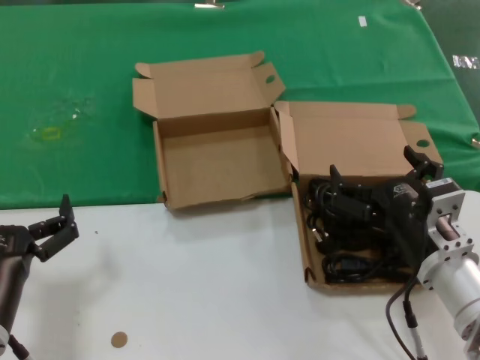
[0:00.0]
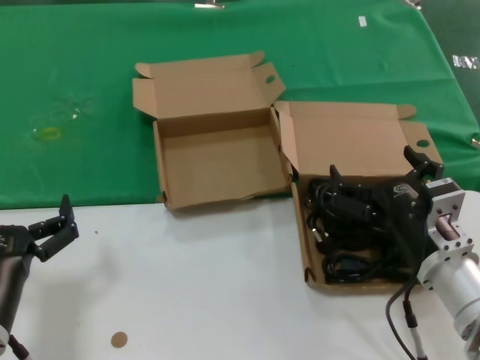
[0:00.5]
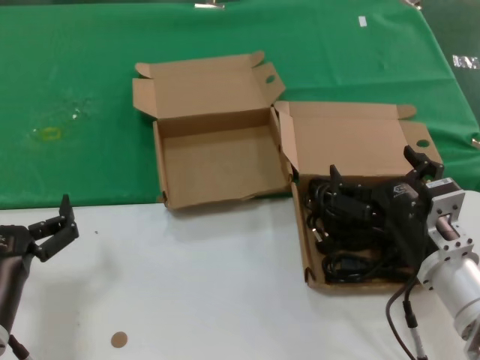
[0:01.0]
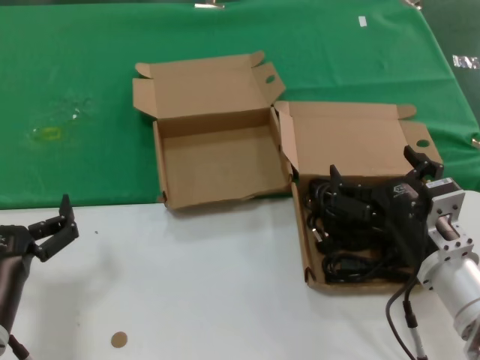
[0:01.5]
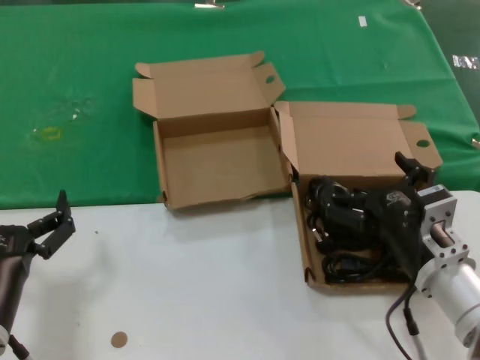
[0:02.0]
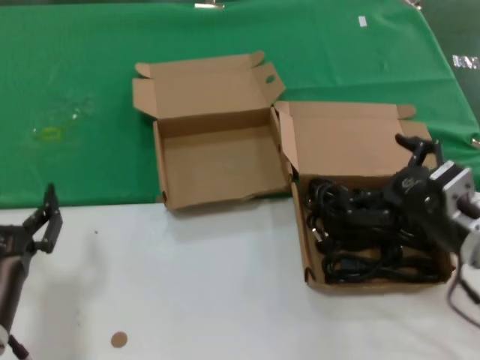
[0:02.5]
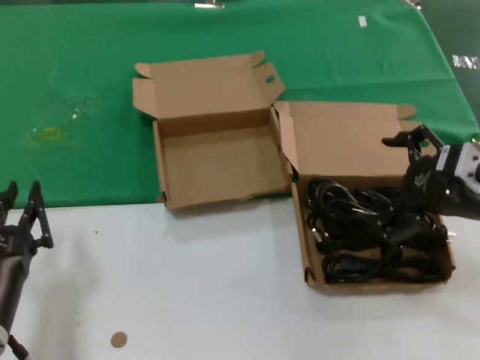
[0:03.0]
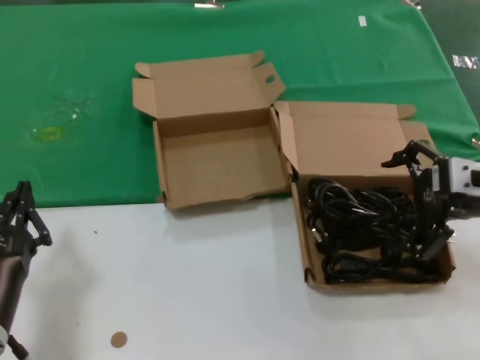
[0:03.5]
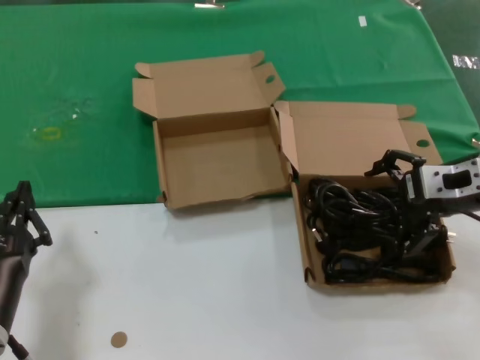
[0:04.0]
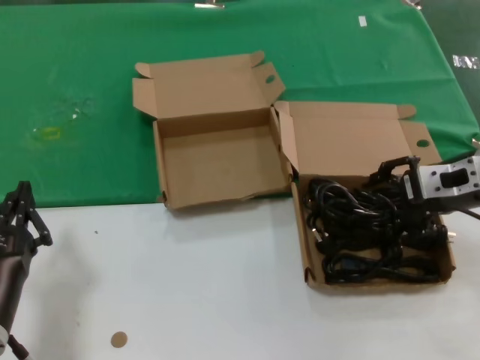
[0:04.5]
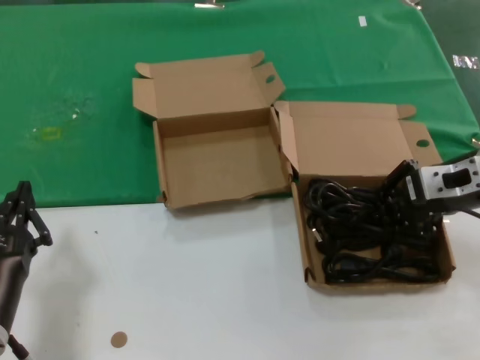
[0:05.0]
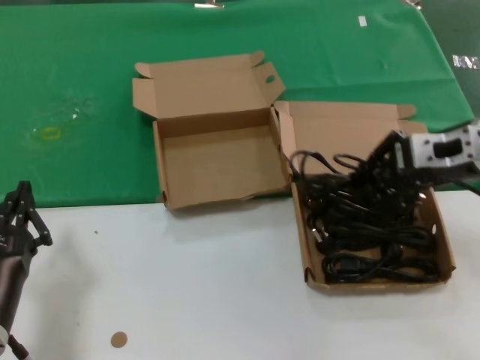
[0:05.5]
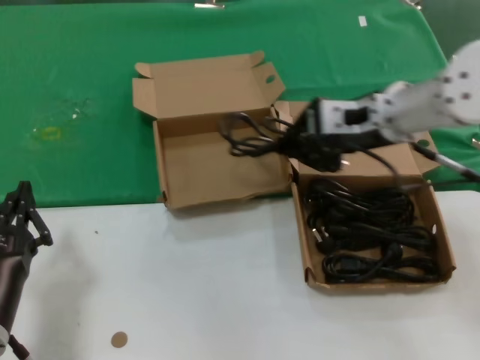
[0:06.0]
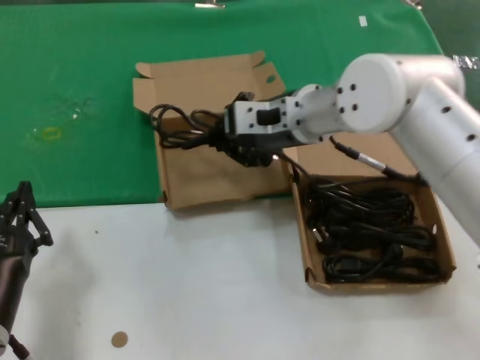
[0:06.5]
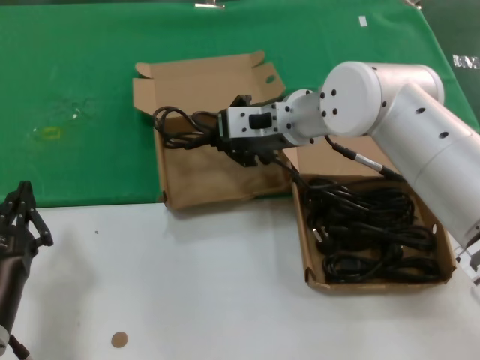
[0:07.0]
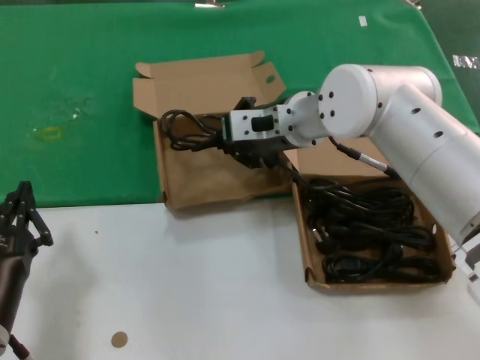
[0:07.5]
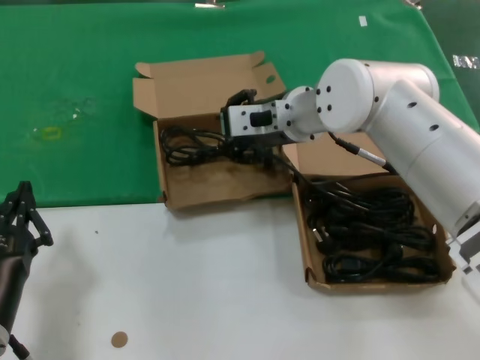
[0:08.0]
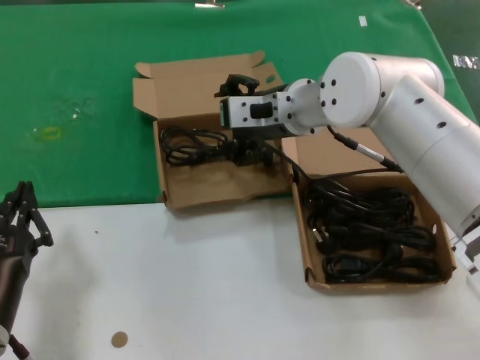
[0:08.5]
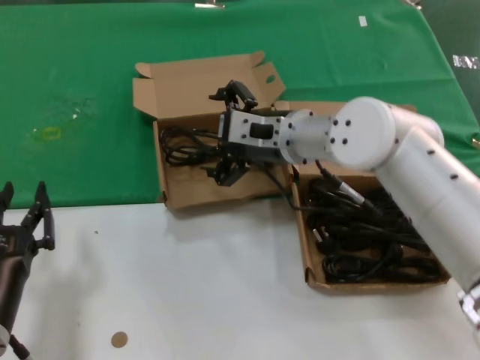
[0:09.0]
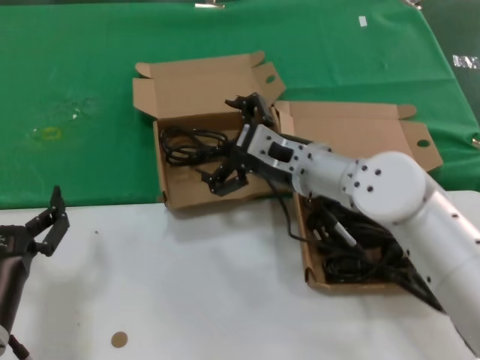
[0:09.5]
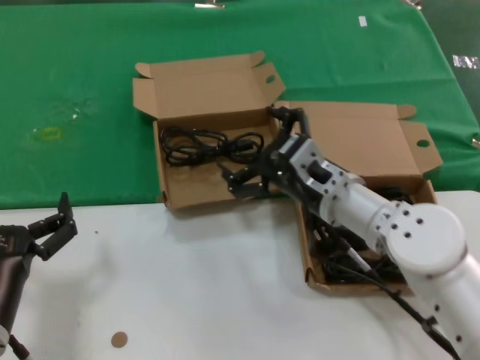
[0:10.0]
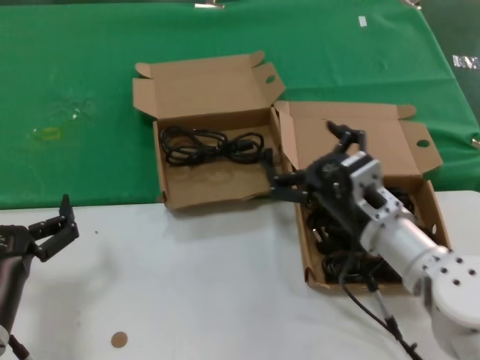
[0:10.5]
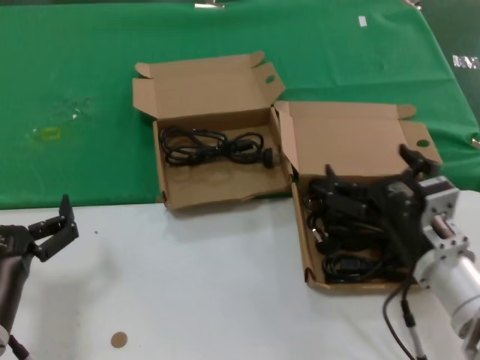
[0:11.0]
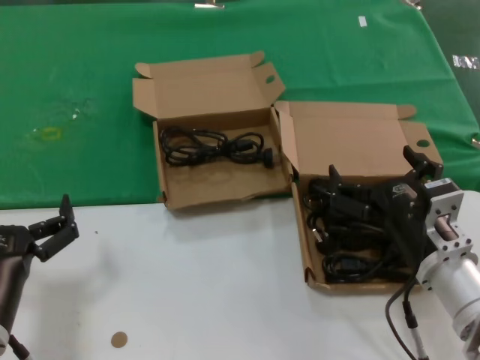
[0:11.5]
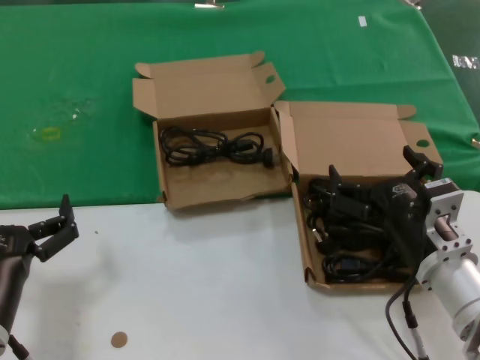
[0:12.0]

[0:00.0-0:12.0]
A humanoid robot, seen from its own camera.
Task of the whole recording: take the parts from the box containing them and put them into an empty box.
Step, 0:00.0 to 0:04.5: Grasp the data cable.
Step, 0:05.0 to 0:07.5: Place the data cable in the another box.
0:00.0 to 0:02.0: Both hands stay put.
0:02.0 to 0:04.0: The right hand shifts about 20 cm upward, forward and to the right.
0:04.0 to 0:06.0: The right hand travels to the left, forward and upward by roughly 15 cm.
0:06.0 to 0:08.0: The right hand is displaced to the left and forward by some 15 cm.
0:08.0 to 0:10.0: The right hand is displaced downward and backward by about 15 cm.
0:10.0 to 0:12.0: The right hand shifts approximately 15 cm backward and to the right.

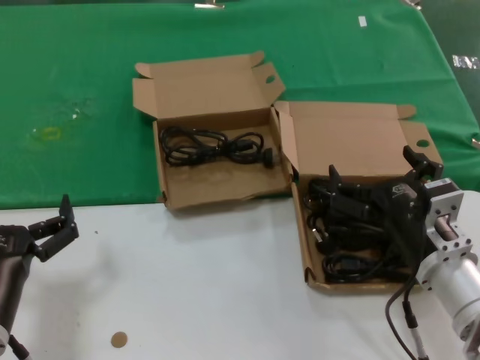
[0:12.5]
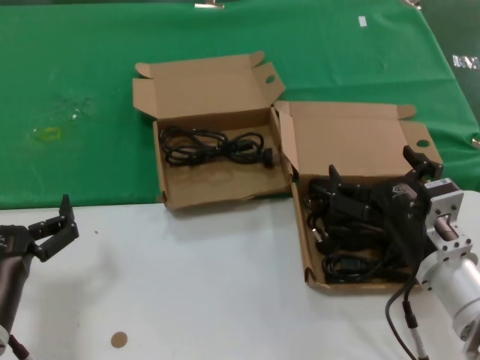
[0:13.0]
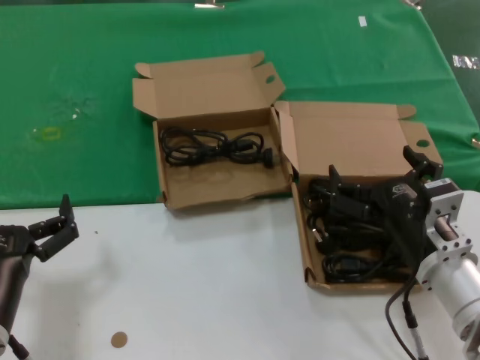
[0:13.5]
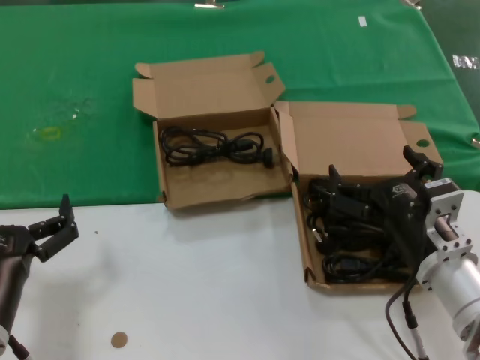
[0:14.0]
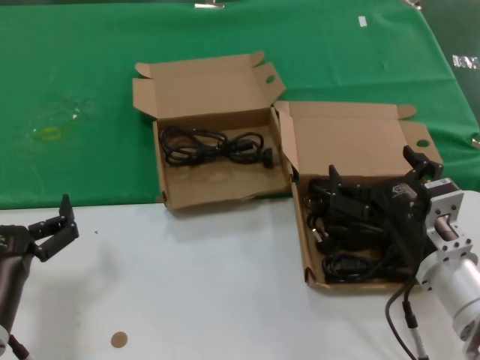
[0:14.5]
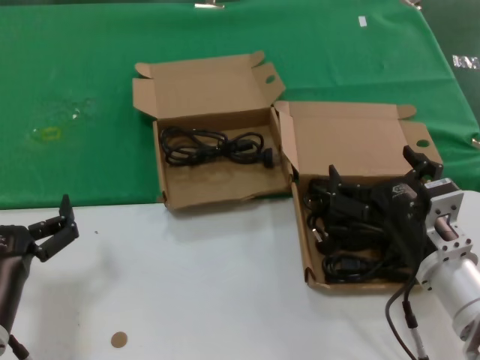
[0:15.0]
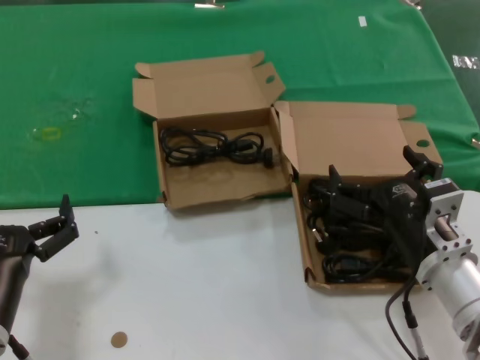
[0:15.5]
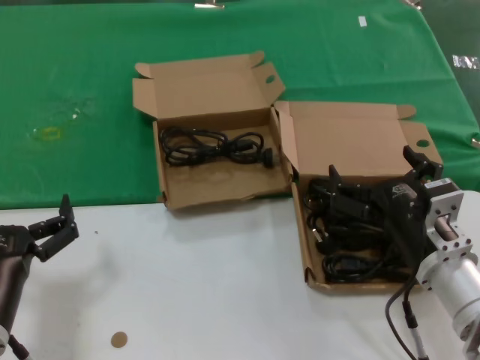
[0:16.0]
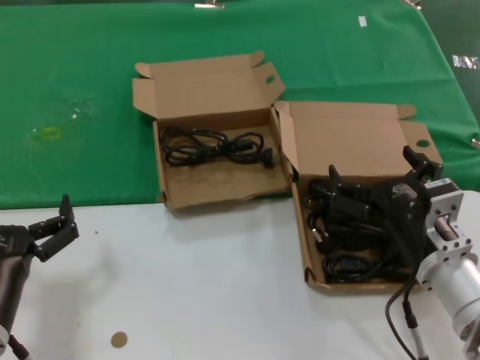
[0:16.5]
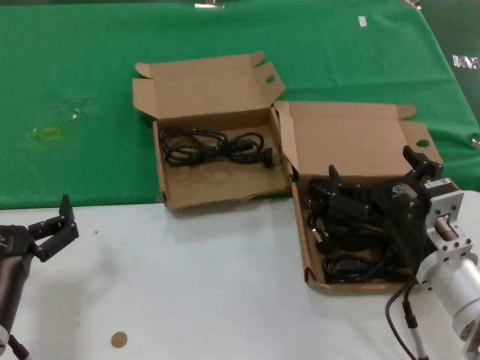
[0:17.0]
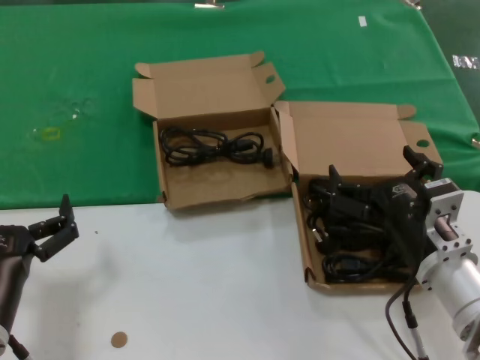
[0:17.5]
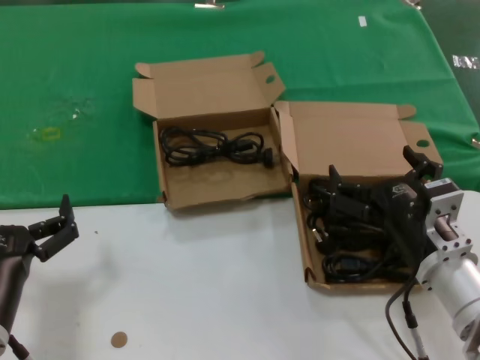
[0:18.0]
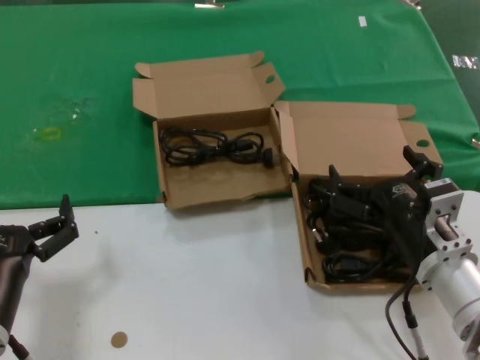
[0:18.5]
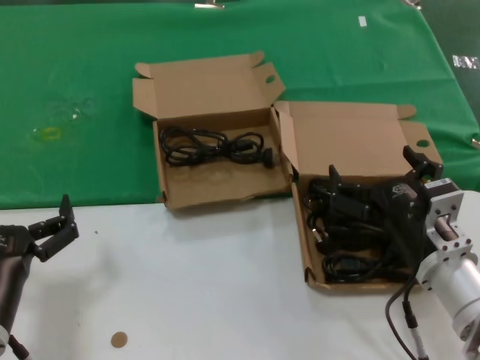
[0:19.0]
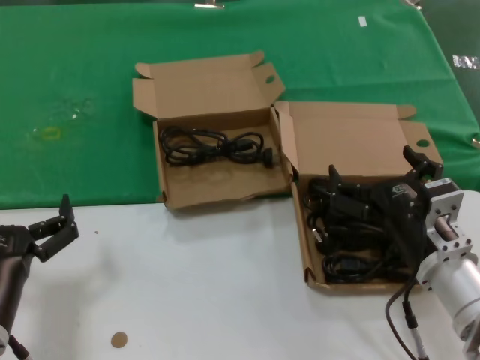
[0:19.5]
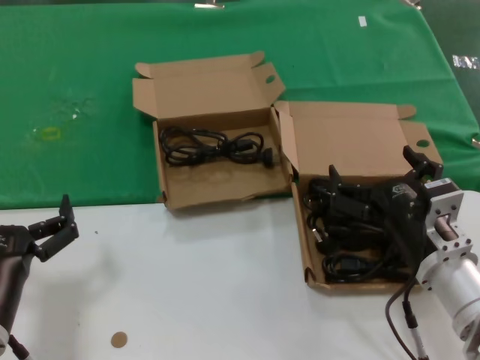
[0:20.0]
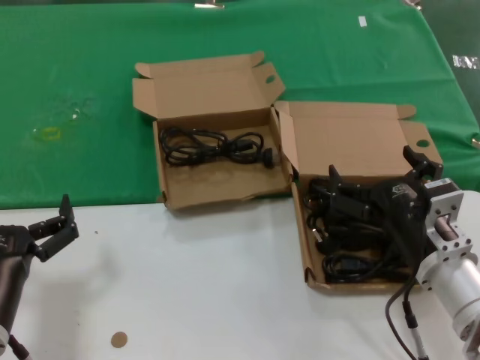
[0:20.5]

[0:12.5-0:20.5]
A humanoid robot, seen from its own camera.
Task of the whole recording: take the parts from the box containing them and put them into an empty box.
0:12.5 to 0:20.5: Neither hand changes place.

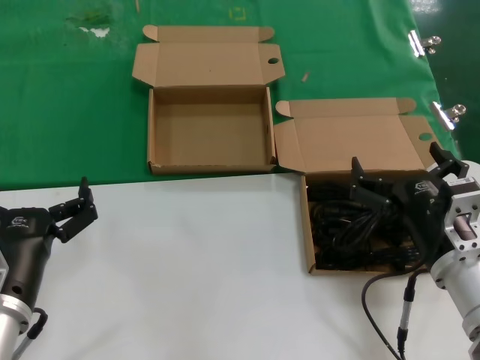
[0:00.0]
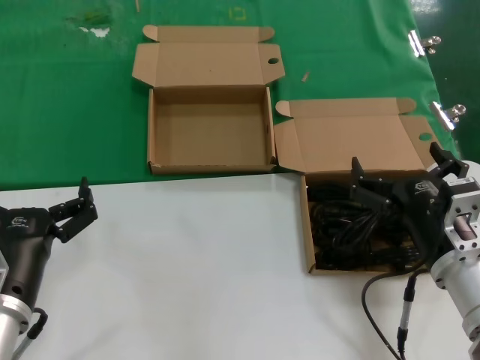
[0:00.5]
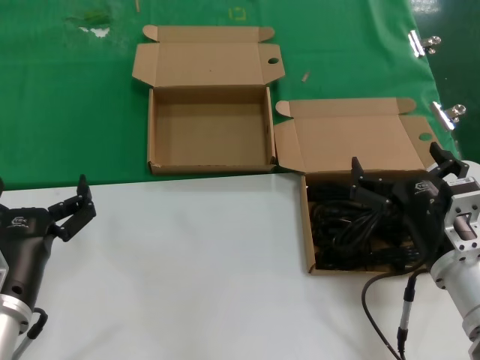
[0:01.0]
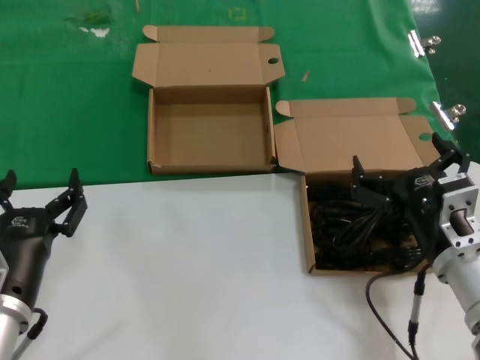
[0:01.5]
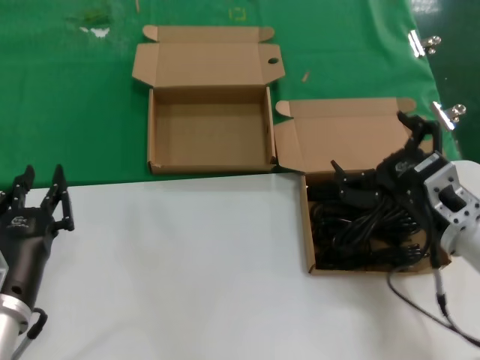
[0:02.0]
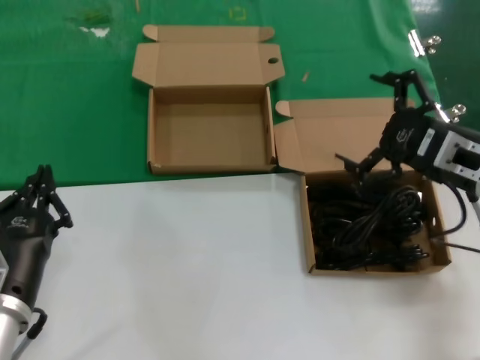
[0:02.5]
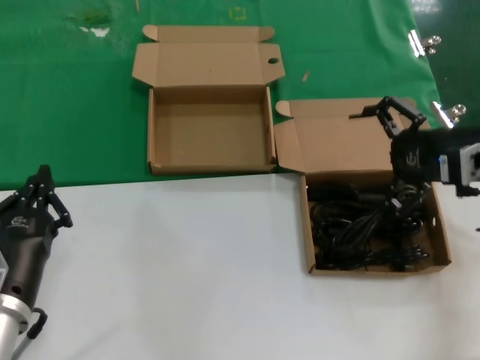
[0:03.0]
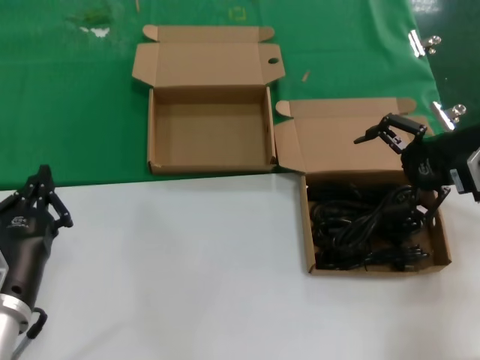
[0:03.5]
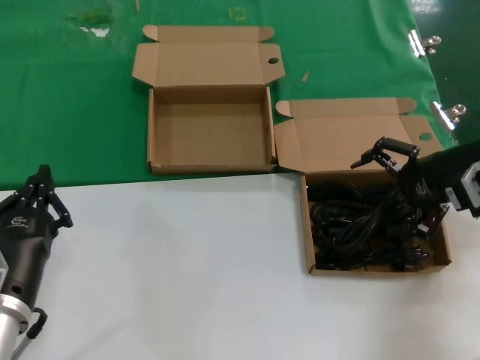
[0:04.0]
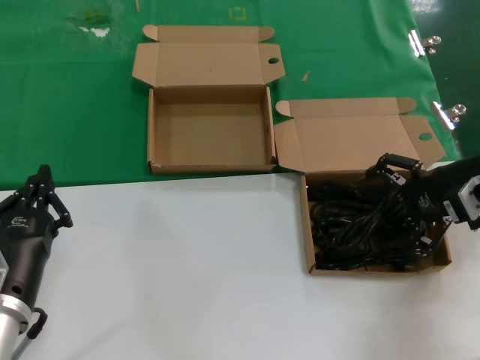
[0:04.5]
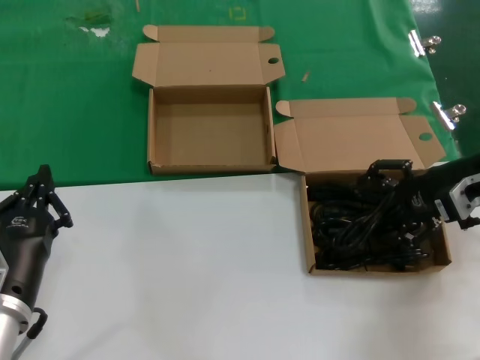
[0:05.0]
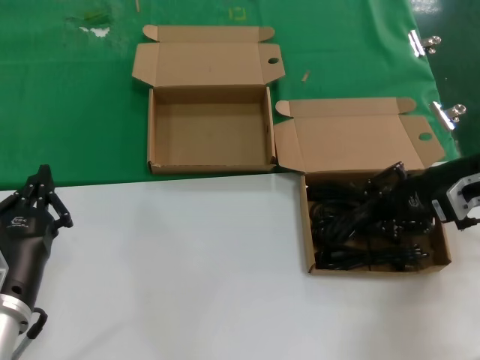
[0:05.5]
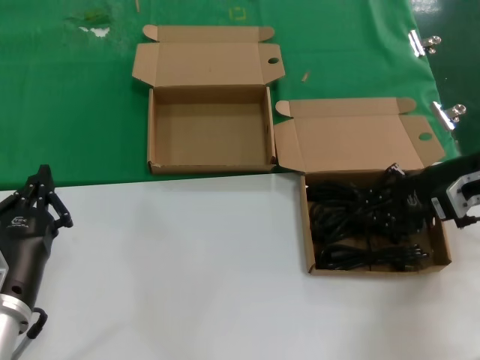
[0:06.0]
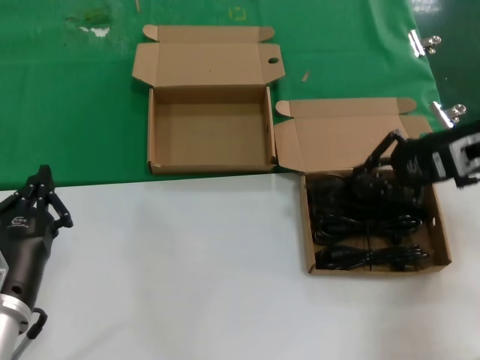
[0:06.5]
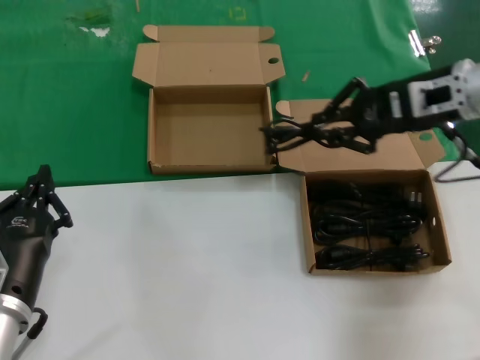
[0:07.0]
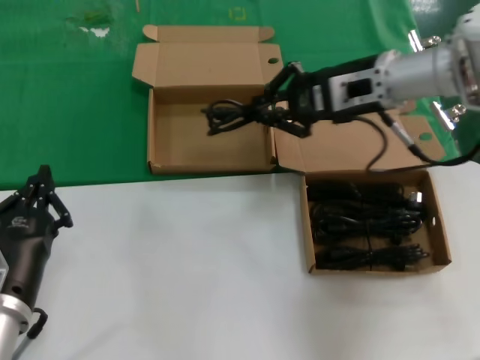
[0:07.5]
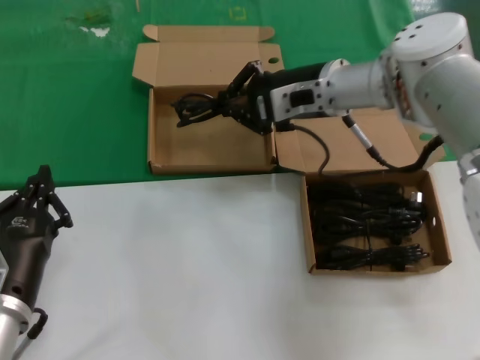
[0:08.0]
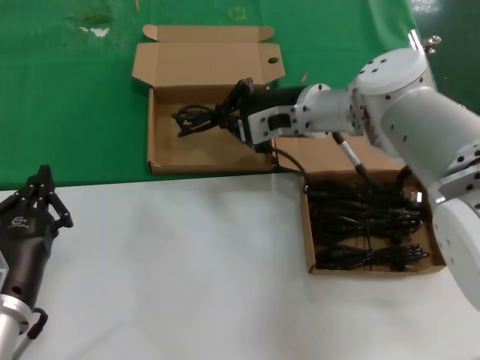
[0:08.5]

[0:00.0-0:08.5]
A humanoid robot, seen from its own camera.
Task of the whole recording: take the parts from the box containing them and put them into an empty box.
Step, 0:00.0 to 0:06.0: Grasp the data cable.
0:00.0 to 0:02.0: The right hand ends up some 5 cm from where it was.
0:02.0 to 0:04.0: The right hand shifts about 20 cm forward, to the right and upward.
0:04.0 to 0:06.5: There are only small adjustments of the hands.
0:06.5 to 0:08.5: The right hand travels to the left by roughly 25 cm.
